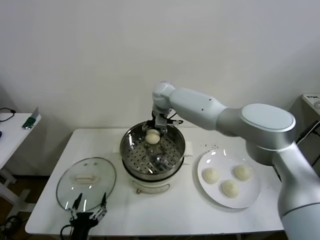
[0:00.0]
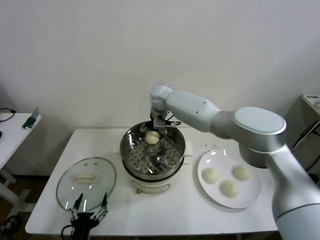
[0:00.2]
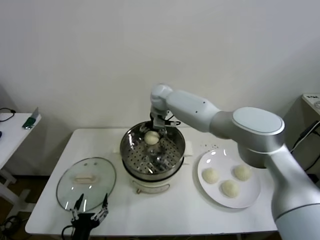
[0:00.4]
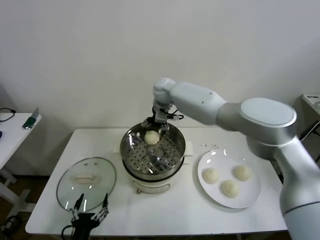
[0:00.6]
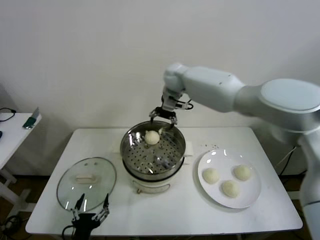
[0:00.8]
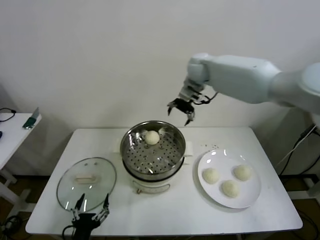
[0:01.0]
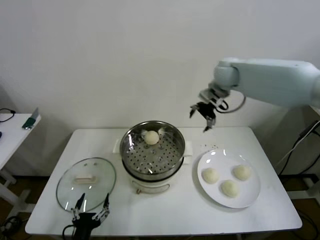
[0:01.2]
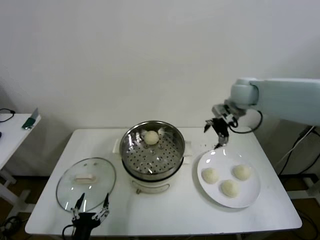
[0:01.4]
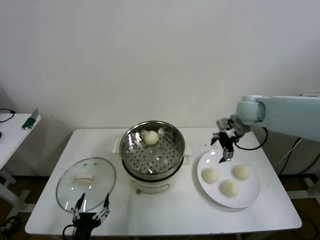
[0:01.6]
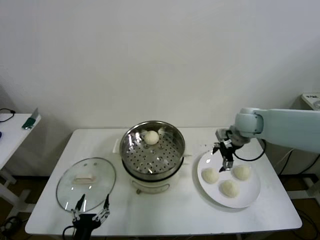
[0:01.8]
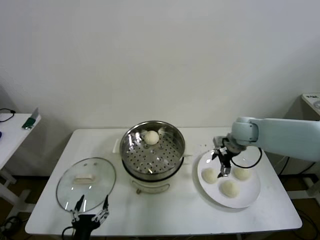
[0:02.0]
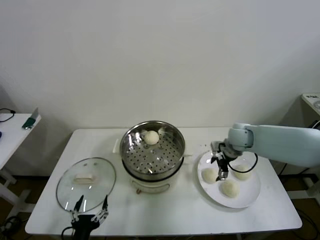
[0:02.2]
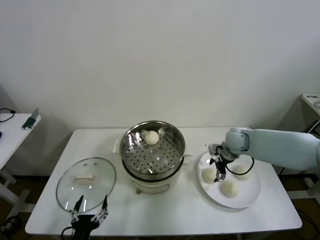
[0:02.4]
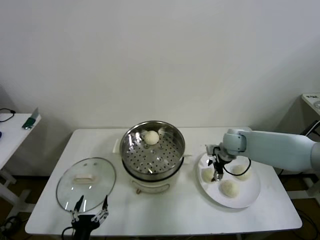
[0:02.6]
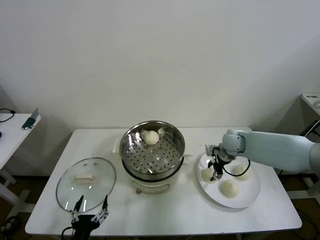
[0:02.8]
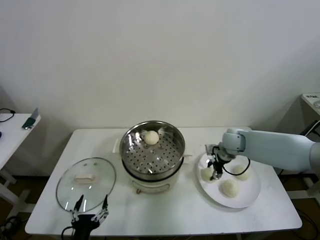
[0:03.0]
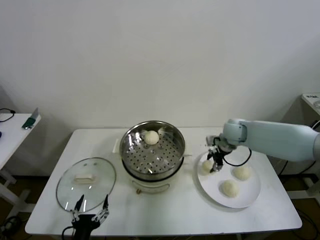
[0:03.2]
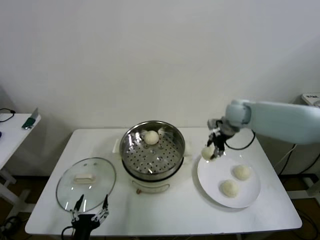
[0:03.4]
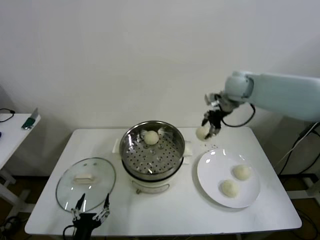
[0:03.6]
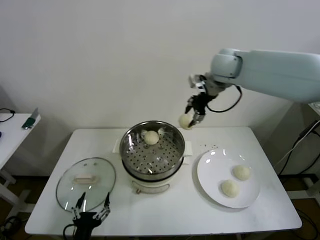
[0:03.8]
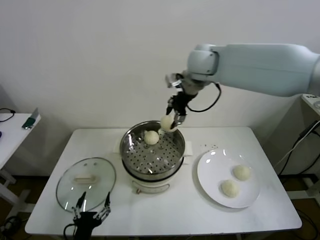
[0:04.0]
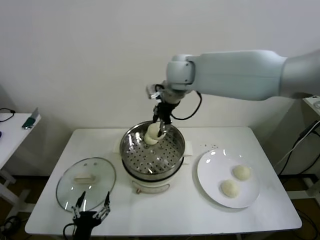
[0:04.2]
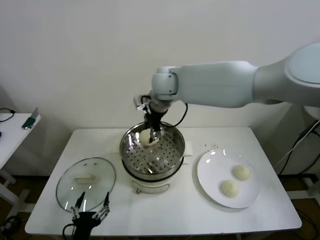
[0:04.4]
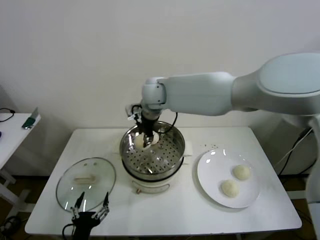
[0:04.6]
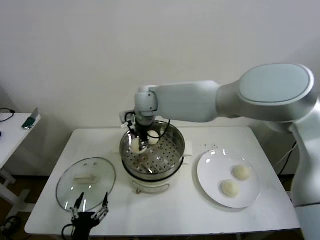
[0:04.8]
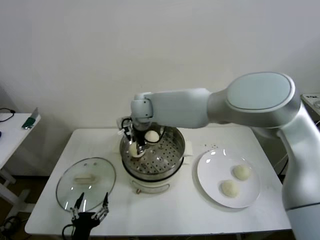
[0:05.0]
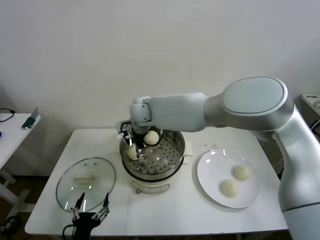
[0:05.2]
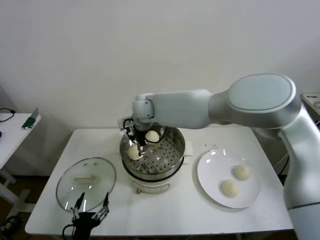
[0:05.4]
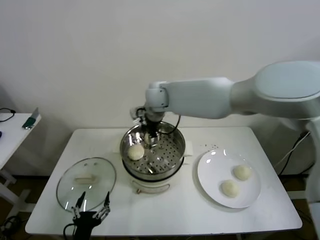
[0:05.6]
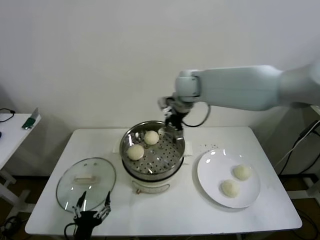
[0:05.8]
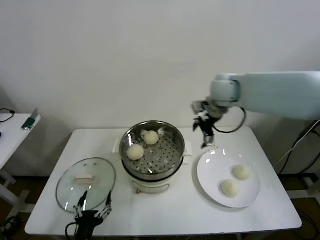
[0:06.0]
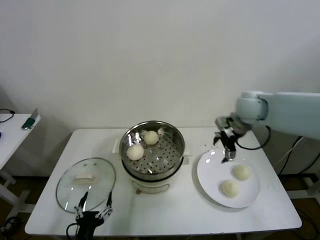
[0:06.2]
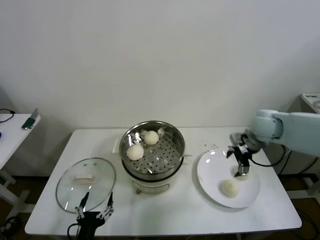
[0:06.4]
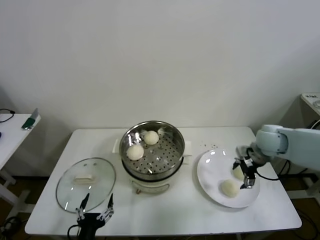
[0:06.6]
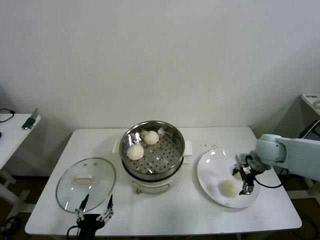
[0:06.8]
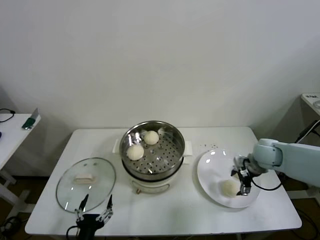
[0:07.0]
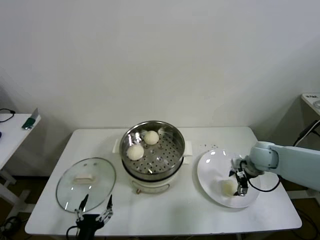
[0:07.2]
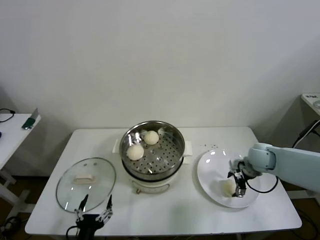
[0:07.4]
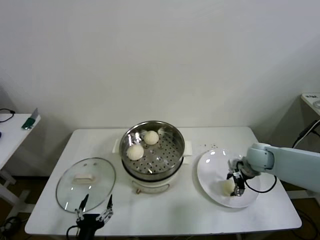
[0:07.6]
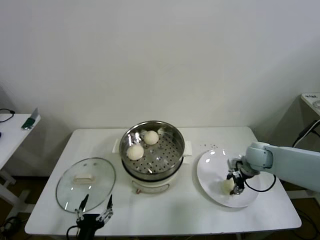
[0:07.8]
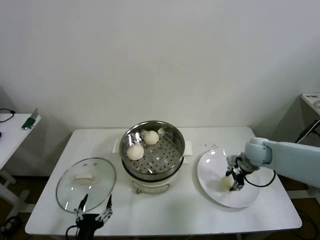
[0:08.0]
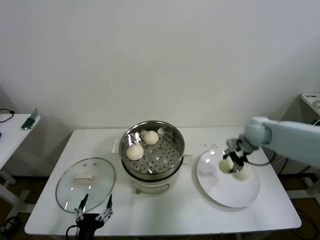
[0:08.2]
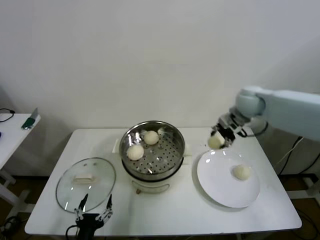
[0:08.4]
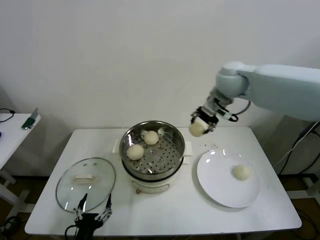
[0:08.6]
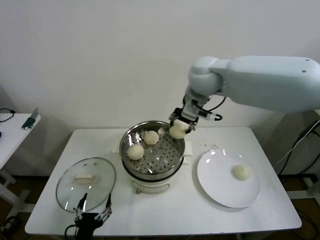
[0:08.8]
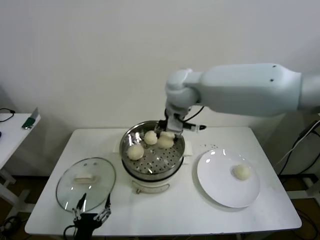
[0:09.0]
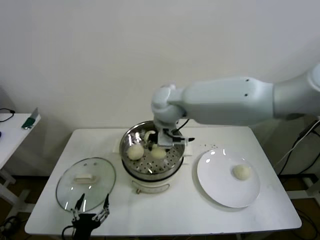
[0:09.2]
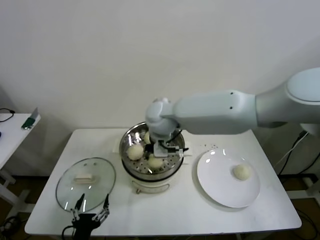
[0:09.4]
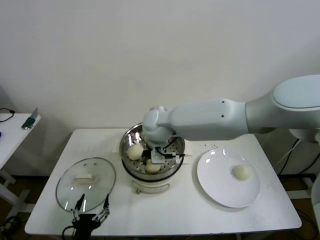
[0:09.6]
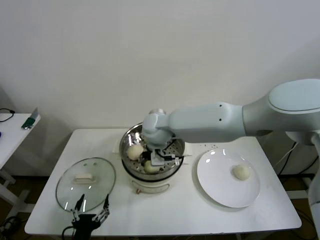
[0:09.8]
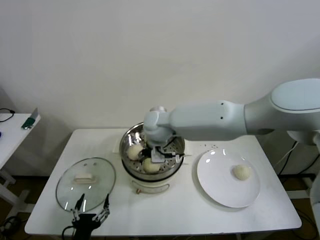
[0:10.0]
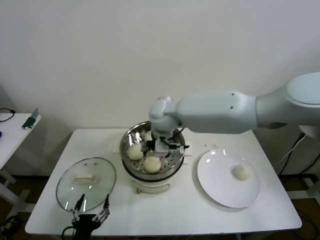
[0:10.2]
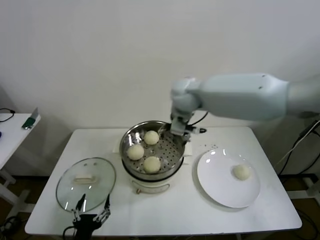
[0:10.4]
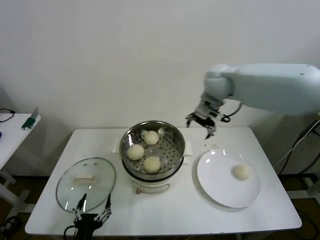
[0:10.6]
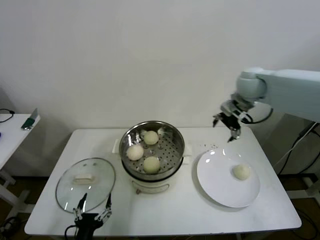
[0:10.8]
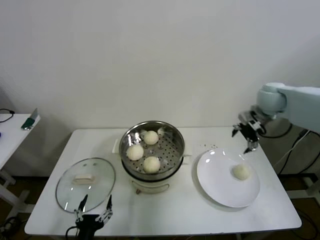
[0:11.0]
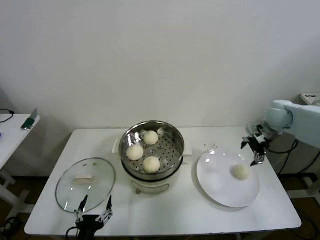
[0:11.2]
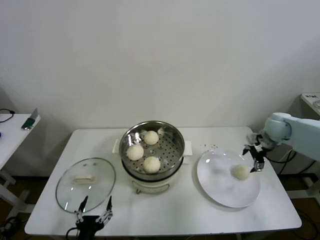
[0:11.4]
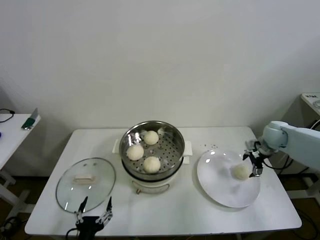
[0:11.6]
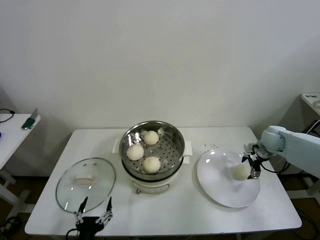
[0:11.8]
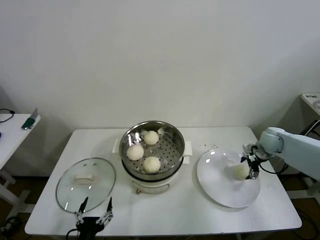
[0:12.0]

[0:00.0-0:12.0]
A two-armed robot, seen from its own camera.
Step, 0.4 to 2.8 s: Grasp the baozi in the plate with right gripper.
Step, 3.0 to 5.2 s: Place the baozi on the steamer with right gripper.
Step, 5.4 to 7.6 s: Grasp the baozi in the plate with right gripper.
Step, 7.8 to 10.0 s: Place the baozi on the steamer with right gripper.
0.0 to 1.6 s: The right gripper moves to the right, some 30 cm.
1.6 to 3.0 s: The right gripper is displaced downward by roughly 10 cm, and closes up.
3.0 to 4.4 s: The right gripper is displaced to the left and upward by roughly 35 cm.
4.4 to 6.0 s: The right gripper heads to the right, covering some 25 cm, and opens its fingers.
6.0 to 7.6 s: The right gripper moves downward and to the right, some 25 cm, and closes up.
7.6 to 9.0 s: The right gripper travels to the left and upward by roughly 40 cm.
9.0 to 10.4 s: The right gripper shifts roughly 5 cm to the right, and opens up.
10.4 to 12.0 s: The right gripper moves to the right and downward, some 40 cm.

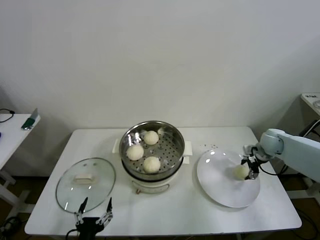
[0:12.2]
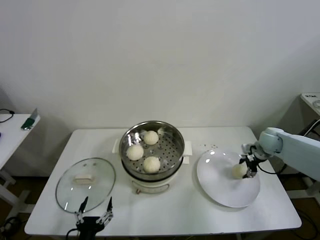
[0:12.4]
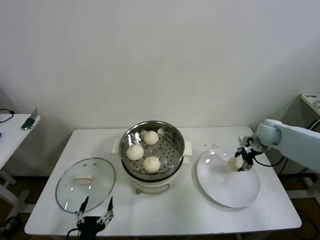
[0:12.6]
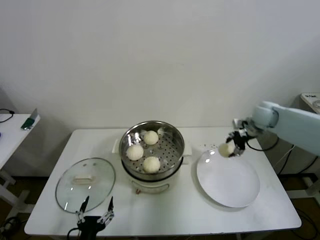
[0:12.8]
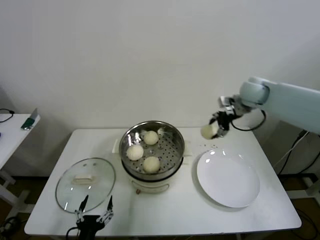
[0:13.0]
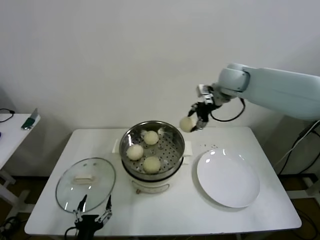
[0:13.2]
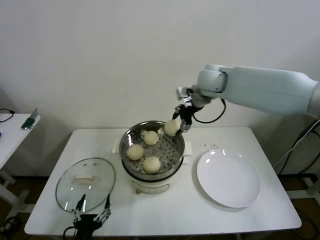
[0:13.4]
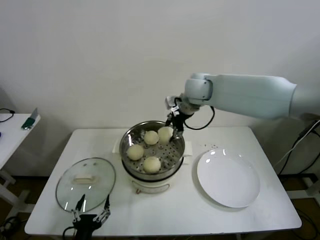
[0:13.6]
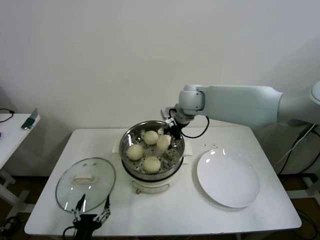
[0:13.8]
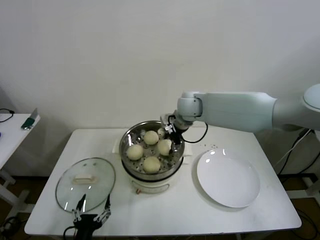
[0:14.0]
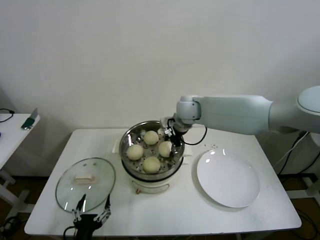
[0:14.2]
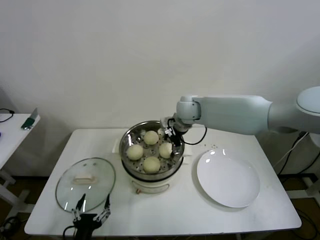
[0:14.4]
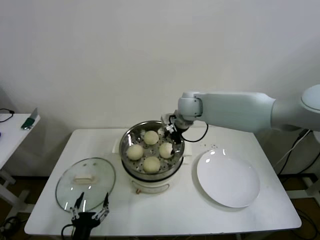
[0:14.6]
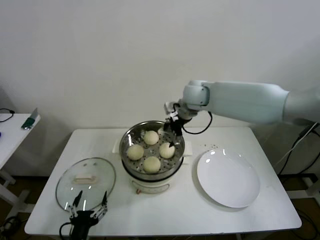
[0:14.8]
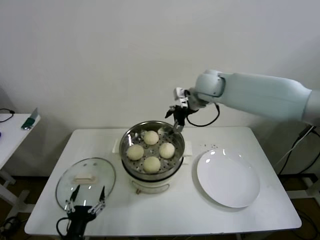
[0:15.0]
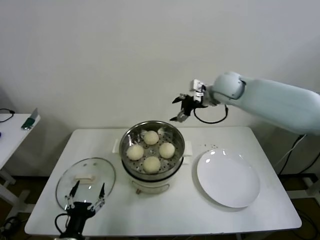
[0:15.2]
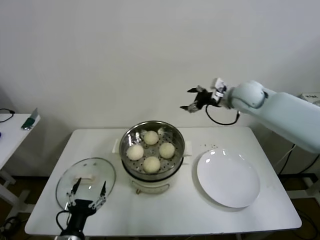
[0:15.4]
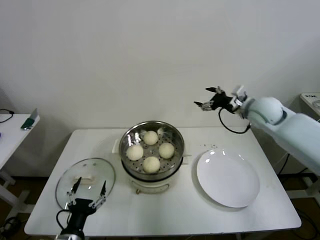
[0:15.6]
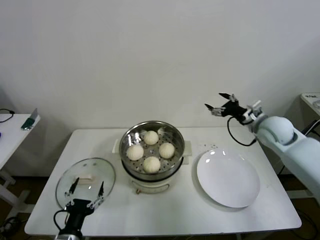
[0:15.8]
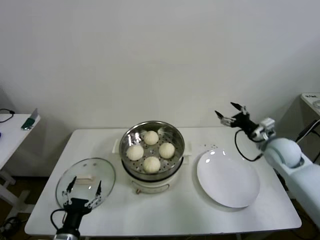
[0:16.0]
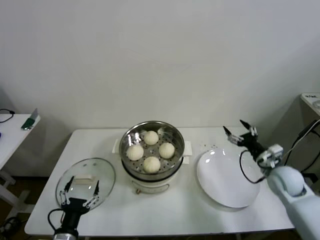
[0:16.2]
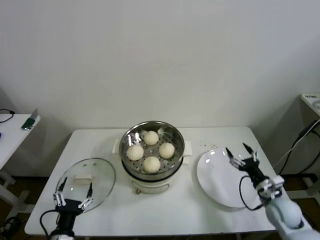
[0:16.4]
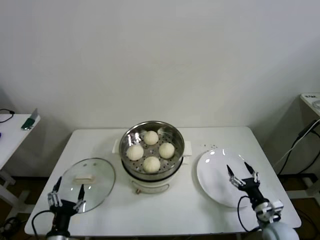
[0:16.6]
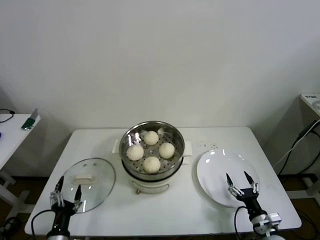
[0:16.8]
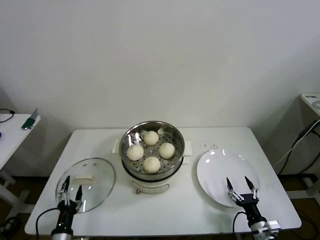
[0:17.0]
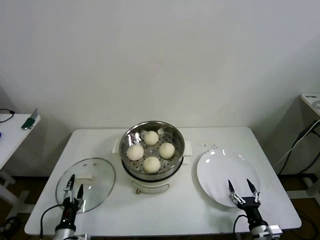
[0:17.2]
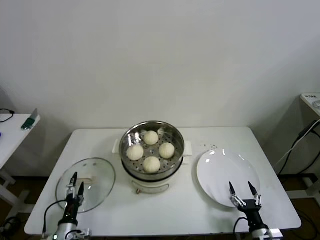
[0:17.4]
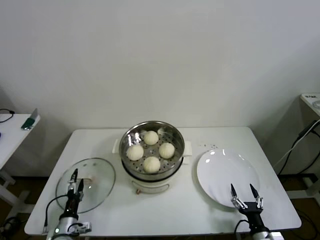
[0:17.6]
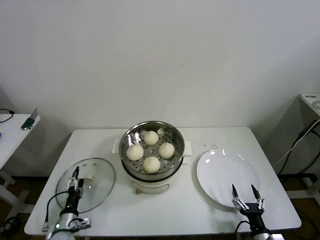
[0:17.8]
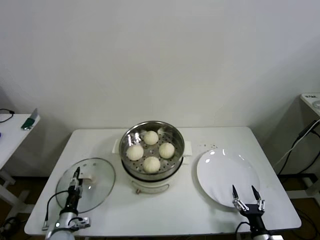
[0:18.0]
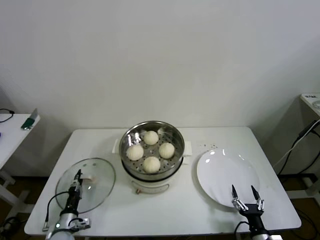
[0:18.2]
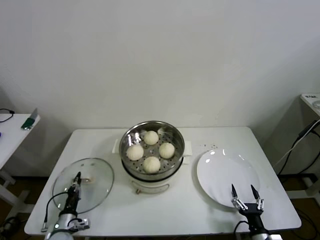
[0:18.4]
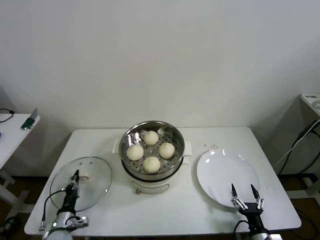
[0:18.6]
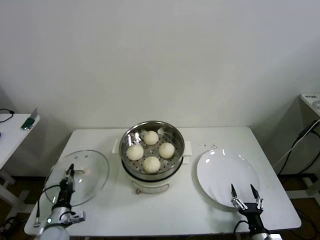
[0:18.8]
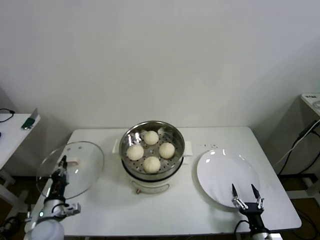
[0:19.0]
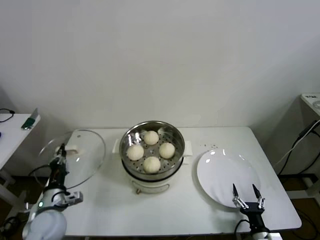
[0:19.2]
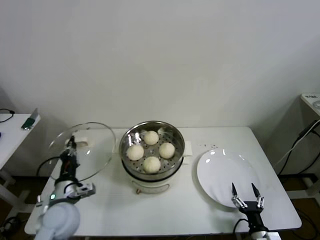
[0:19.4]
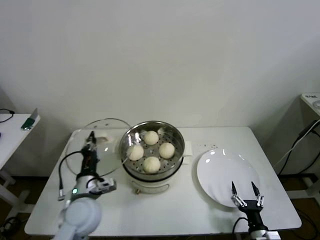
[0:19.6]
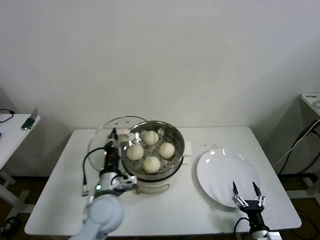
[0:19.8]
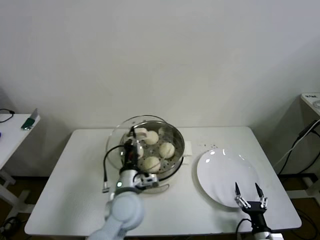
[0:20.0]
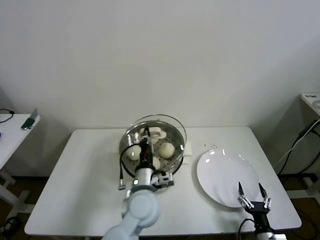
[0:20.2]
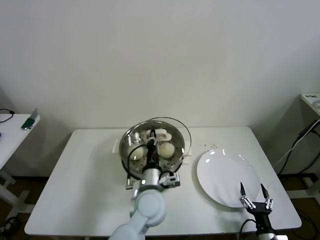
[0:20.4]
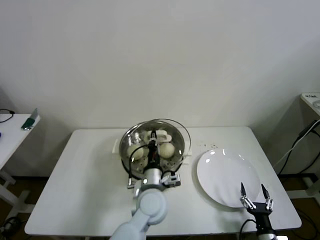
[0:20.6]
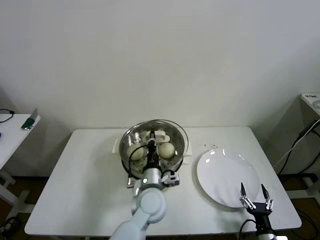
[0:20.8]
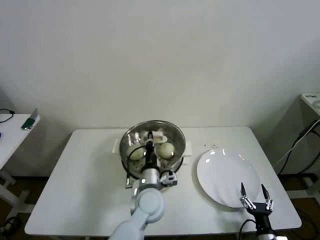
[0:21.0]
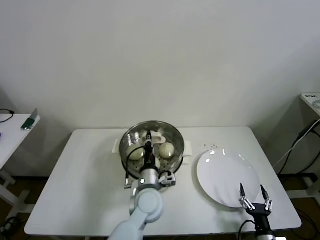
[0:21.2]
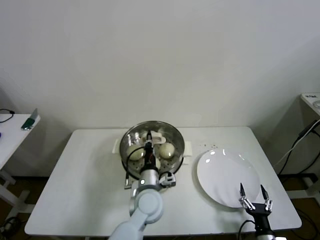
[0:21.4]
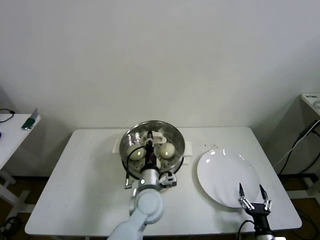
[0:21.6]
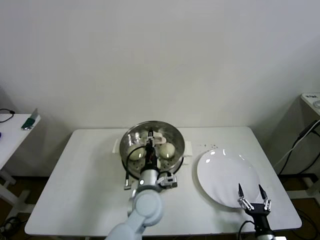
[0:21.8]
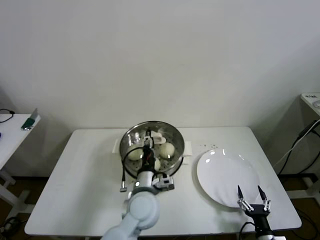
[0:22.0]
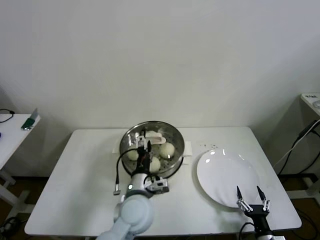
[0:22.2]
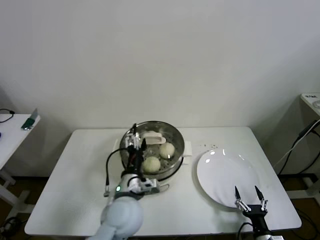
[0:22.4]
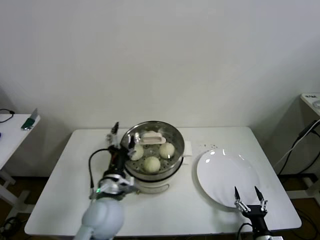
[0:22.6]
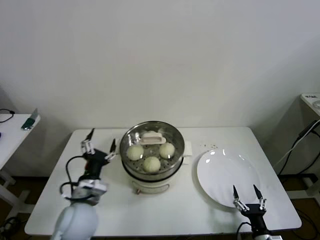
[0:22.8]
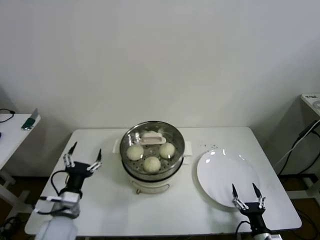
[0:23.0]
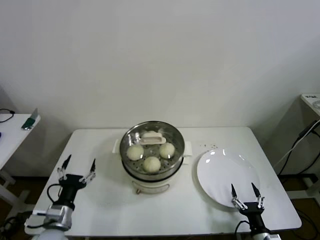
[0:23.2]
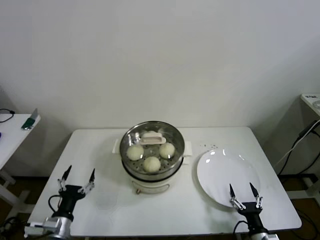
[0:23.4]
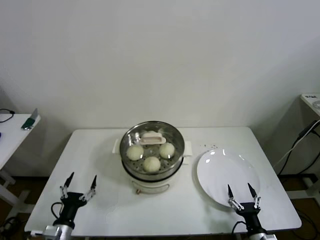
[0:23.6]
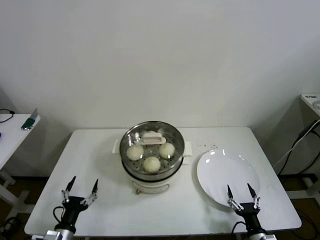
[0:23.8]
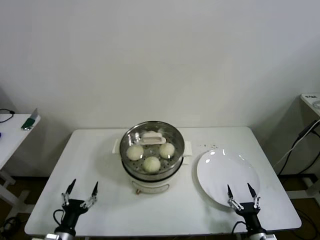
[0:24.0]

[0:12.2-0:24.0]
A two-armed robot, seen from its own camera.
Step, 12.4 to 14.2 s: Place the baozi on the steamer with right gripper.
Step, 14.4 to 18.4 s: Grasp the pot lid with left gripper.
Step, 18.6 to 21.6 s: Place the pot lid on the steamer with left gripper.
12.2 to 13.6 s: The right gripper heads to the left and upward, covering about 40 cm.
13.6 to 15.2 s: The right gripper travels to the right by about 10 cm, and opens.
15.2 to 16.6 s: The right gripper is displaced downward, backward and to the right by roughly 50 cm. Meanwhile the left gripper changes place by approximately 5 cm.
16.6 to 18.2 s: The right gripper goes approximately 10 cm backward and downward. The left gripper travels downward, forward and to the left by approximately 15 cm, and closes up.
18.2 to 19.6 s: The left gripper travels upward and to the right by approximately 25 cm, and closes its fingers.
19.6 to 21.0 s: The left gripper goes roughly 20 cm to the right.
21.0 to 22.6 s: The left gripper goes approximately 10 cm to the left and upward, and opens up.
22.6 to 24.0 s: The left gripper goes roughly 30 cm to the left, downward and backward.
